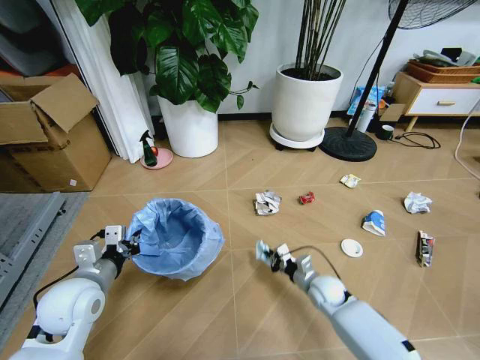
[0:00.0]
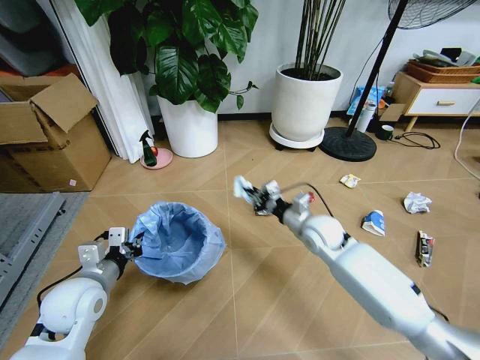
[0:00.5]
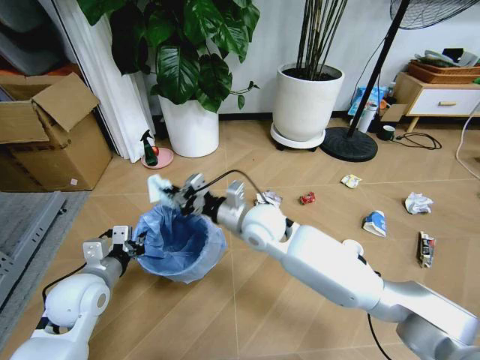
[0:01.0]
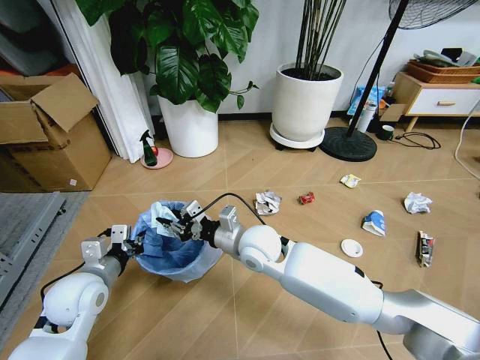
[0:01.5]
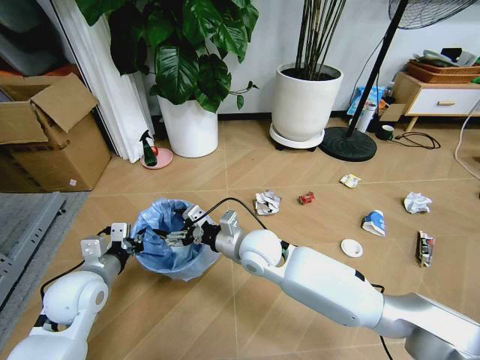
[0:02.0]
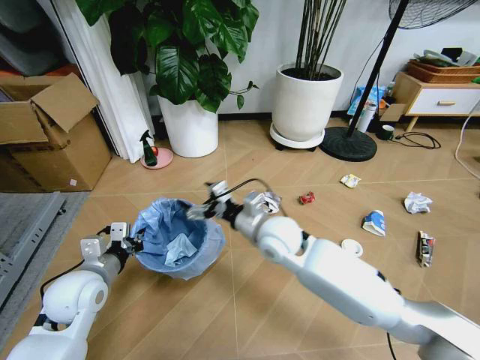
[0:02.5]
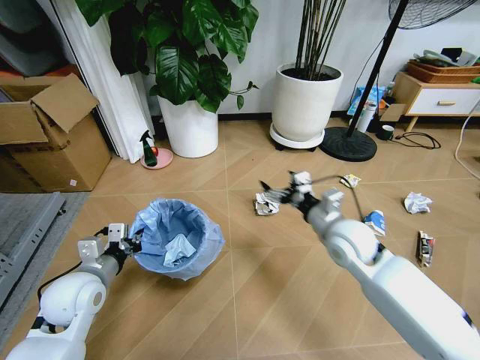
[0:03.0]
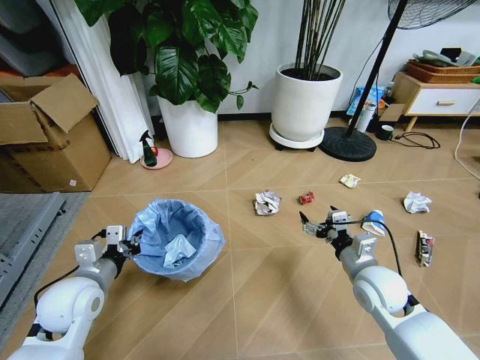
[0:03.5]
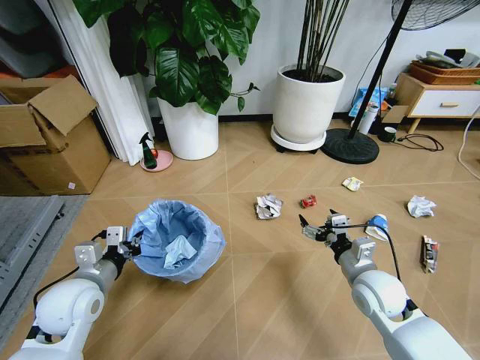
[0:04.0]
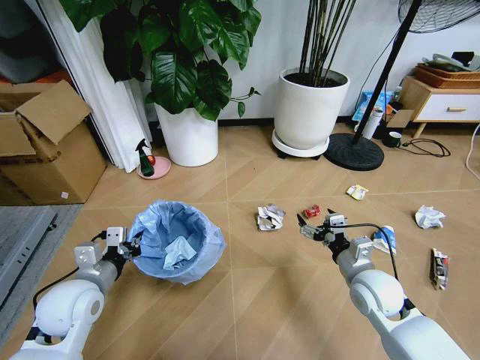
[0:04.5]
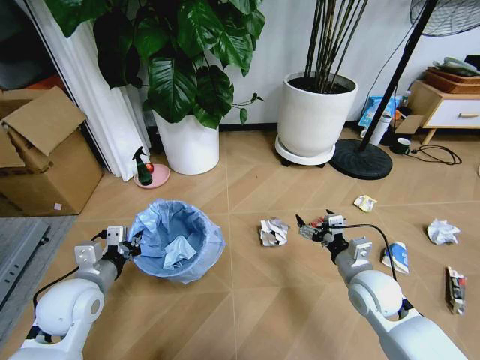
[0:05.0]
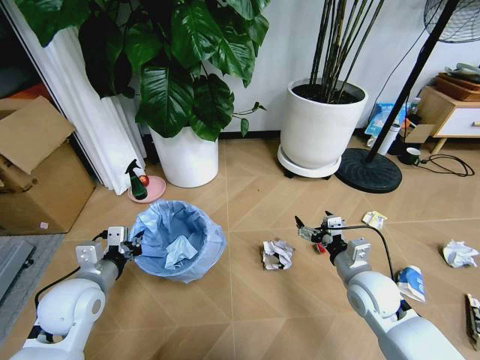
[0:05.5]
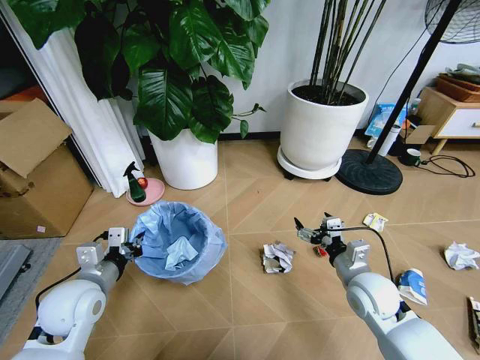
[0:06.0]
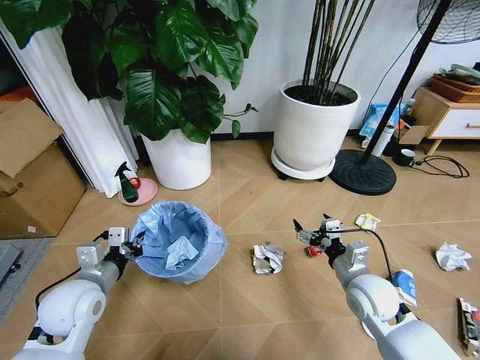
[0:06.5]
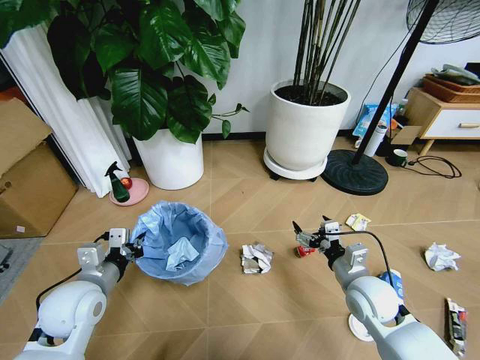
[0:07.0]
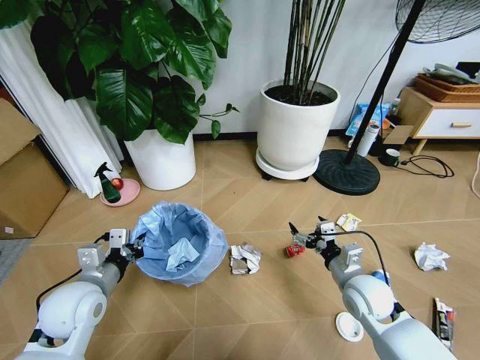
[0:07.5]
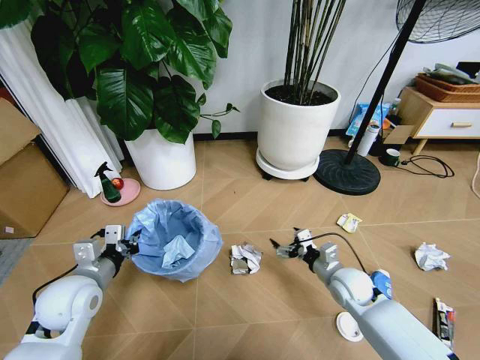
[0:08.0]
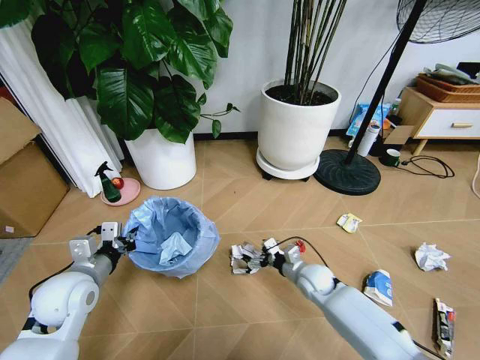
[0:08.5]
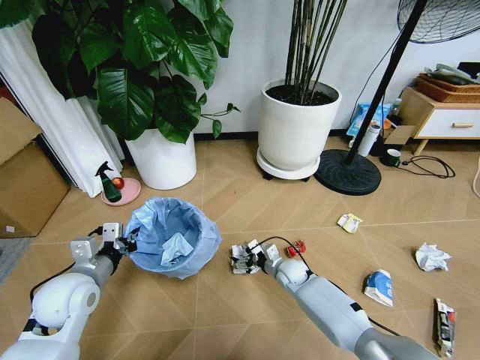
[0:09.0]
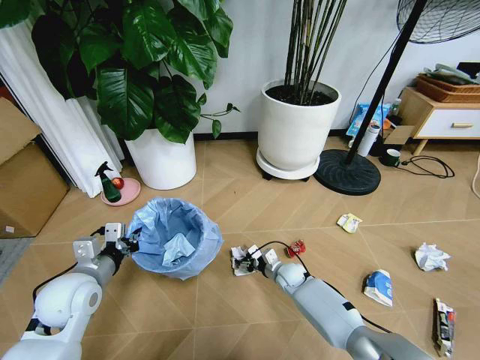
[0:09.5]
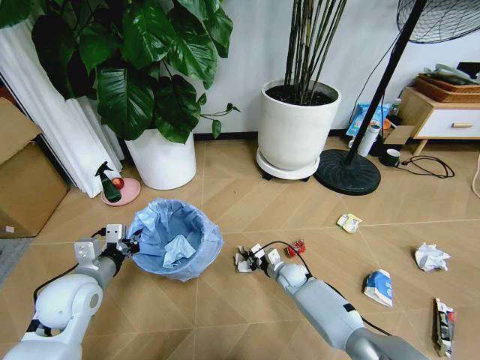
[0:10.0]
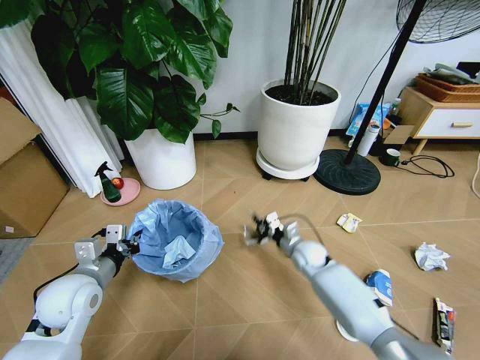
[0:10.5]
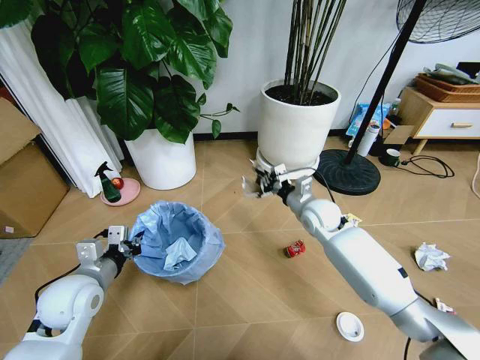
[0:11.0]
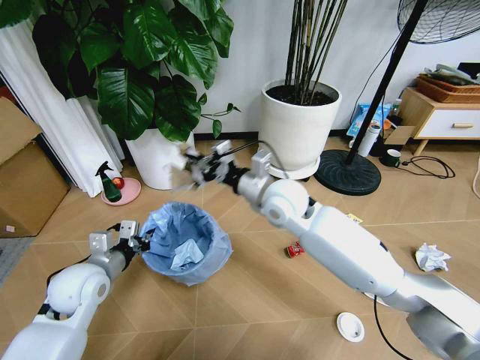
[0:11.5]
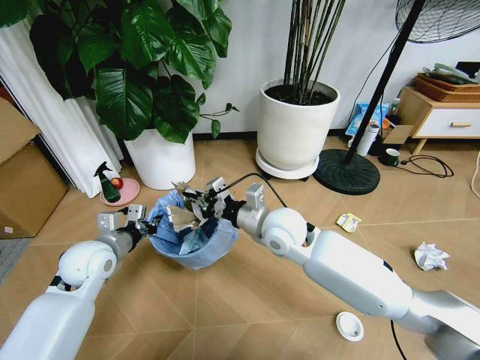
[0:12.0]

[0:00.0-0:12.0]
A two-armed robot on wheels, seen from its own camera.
Task of the whole recording: Pick up the trash bin and place the garbage on the floor into it.
0:00.0 to 0:02.0: The right gripper shifts some 30 cm upward and to the left, and opens its fingers.
0:02.0 to 0:04.0: The right gripper travels to the right by about 25 cm.
0:06.0 to 0:08.0: The right gripper shifts about 5 cm downward.
0:08.0 to 0:10.0: The right gripper moves downward, to the left and forward, approximately 20 cm, and closes its fingers.
0:10.0 to 0:12.0: The right gripper is displaced upward by roughly 30 cm, while the left gripper shifts approximately 5 cm forward.

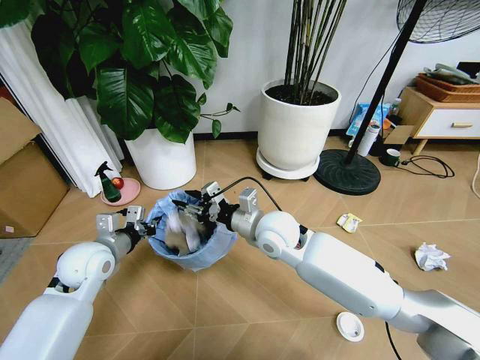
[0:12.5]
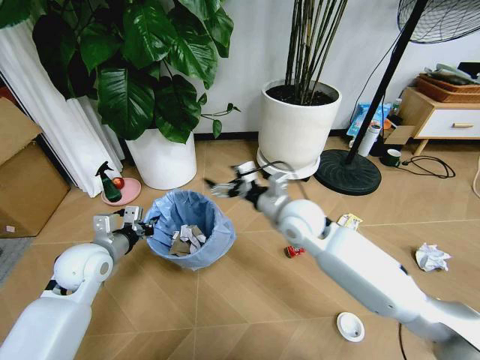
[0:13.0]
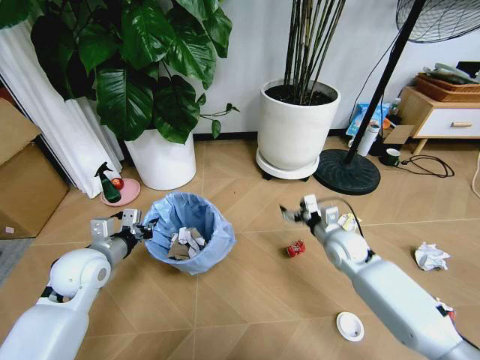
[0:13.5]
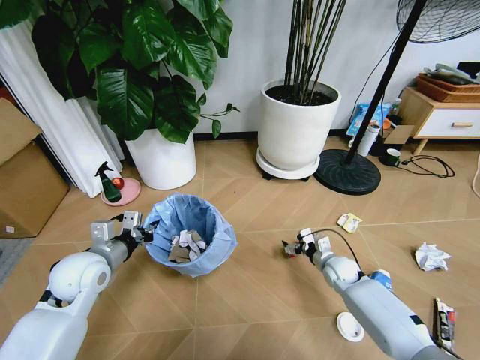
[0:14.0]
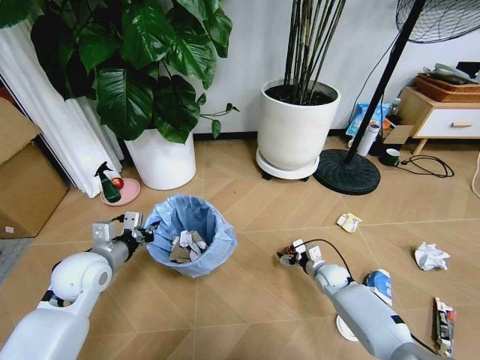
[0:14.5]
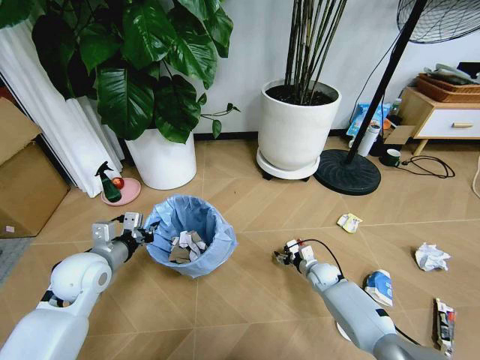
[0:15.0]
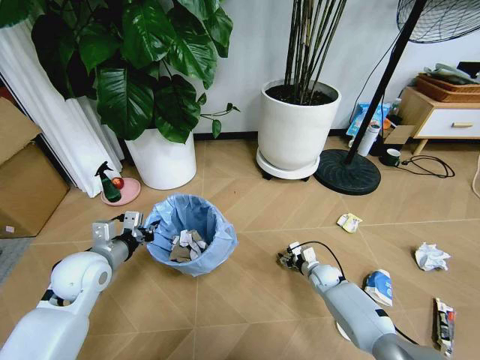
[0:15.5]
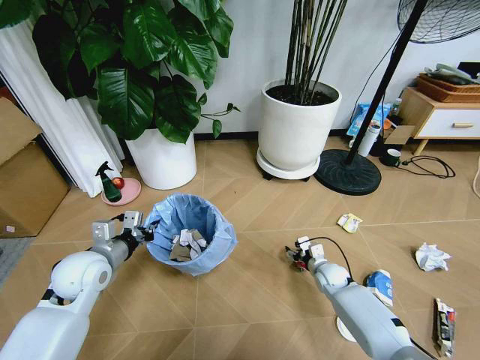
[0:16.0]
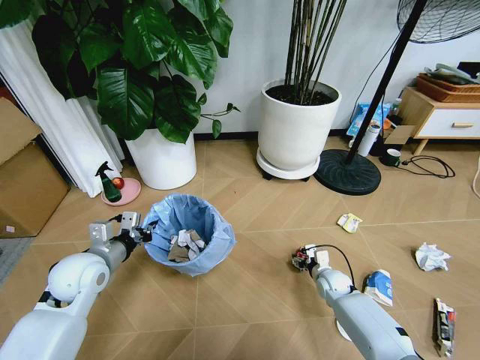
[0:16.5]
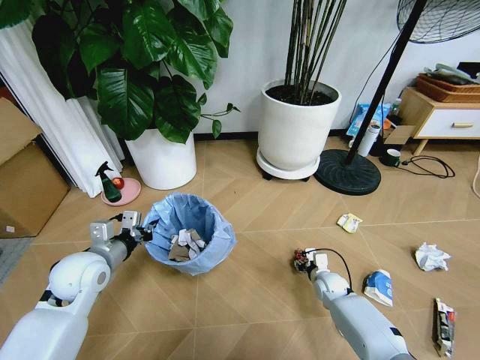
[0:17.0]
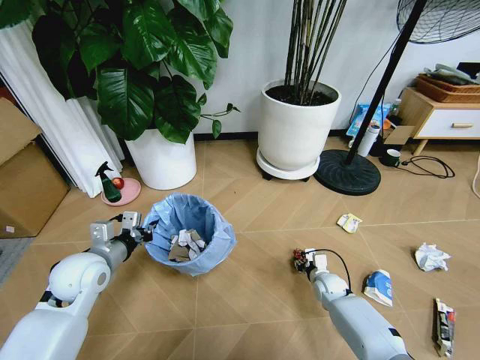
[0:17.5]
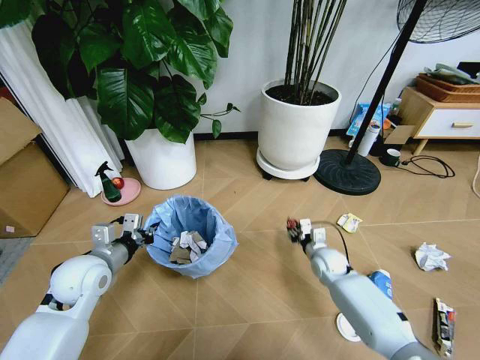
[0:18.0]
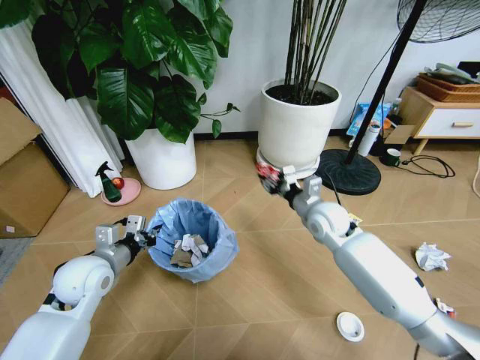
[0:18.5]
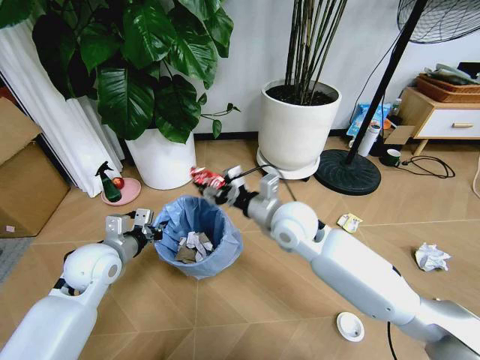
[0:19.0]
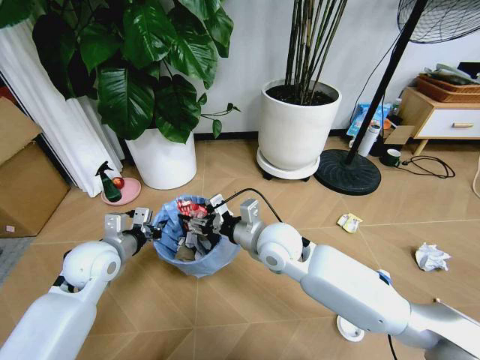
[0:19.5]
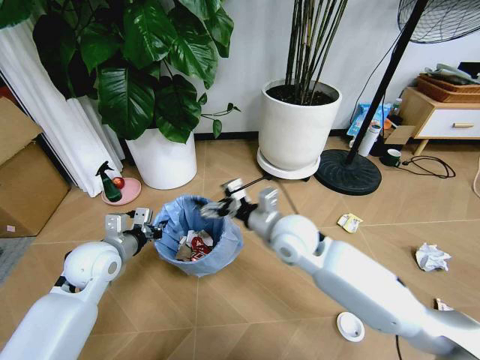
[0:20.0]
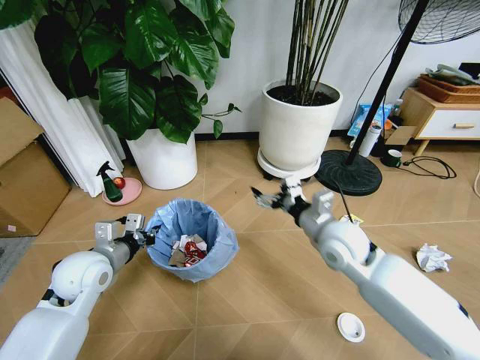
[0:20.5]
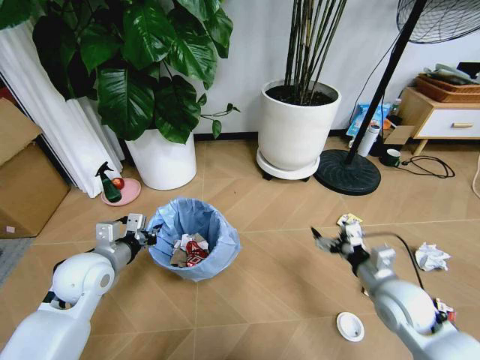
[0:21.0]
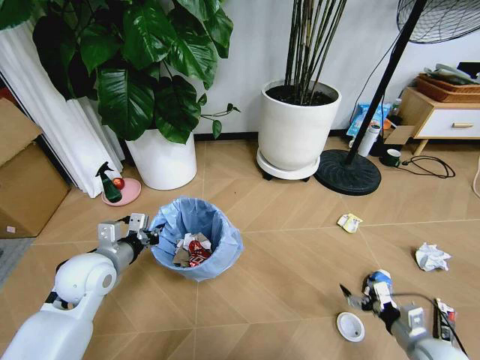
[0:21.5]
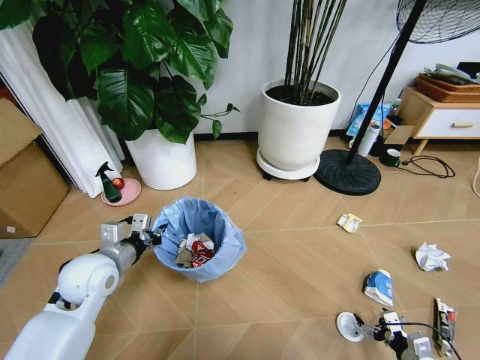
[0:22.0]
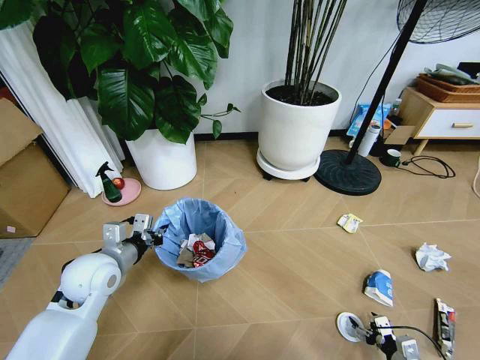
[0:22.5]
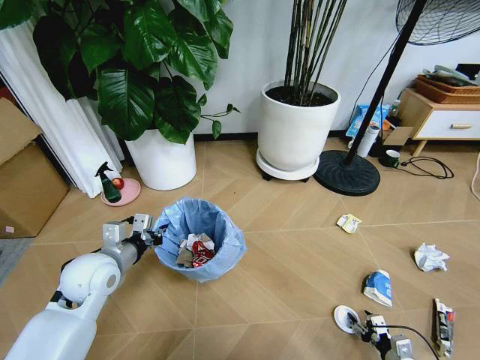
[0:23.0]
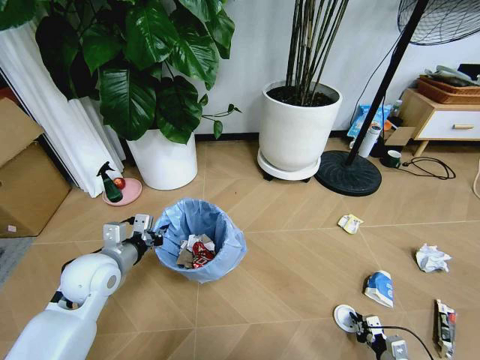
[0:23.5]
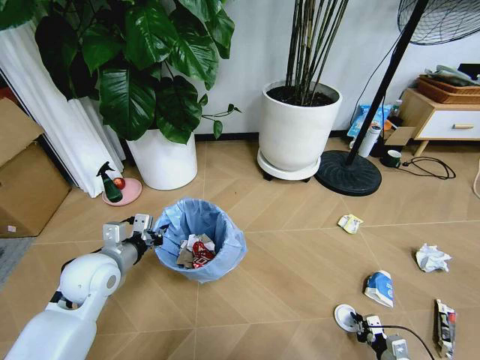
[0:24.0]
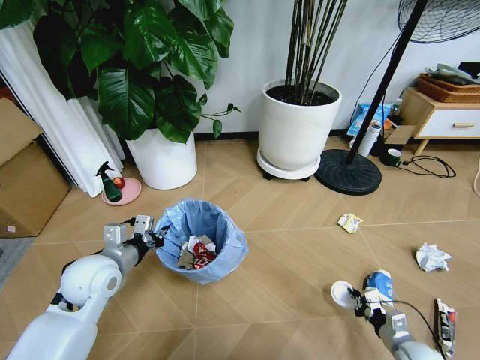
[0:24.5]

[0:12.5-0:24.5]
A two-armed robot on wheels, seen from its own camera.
Task of the whole recording: Pick up the trash bin and place the garbage on the floor into it.
0:12.5 to 0:14.5: The right gripper goes roughly 35 cm downward and to the right, and opens up.
0:14.5 to 0:16.5: The grippers stay close to where they were, moving slightly.
0:16.5 to 0:18.5: The right gripper shifts about 25 cm upward.
0:18.5 to 0:20.5: The right gripper heads backward, covering roughly 10 cm, reaches about 15 cm to the left, then returns, and opens its fingers.
0:20.5 to 0:22.5: The right gripper shifts approximately 50 cm downward, to the right and backward.
0:22.5 to 0:24.5: The right gripper heads forward, covering roughly 5 cm, and closes its fingers.

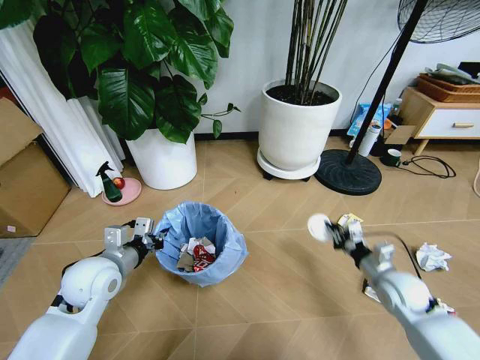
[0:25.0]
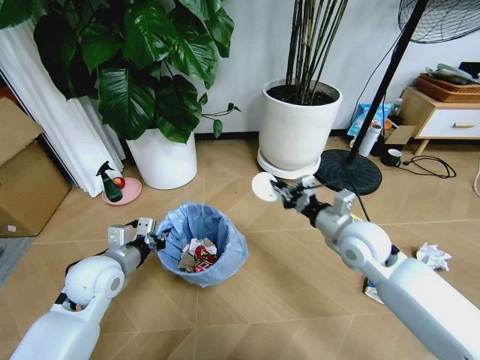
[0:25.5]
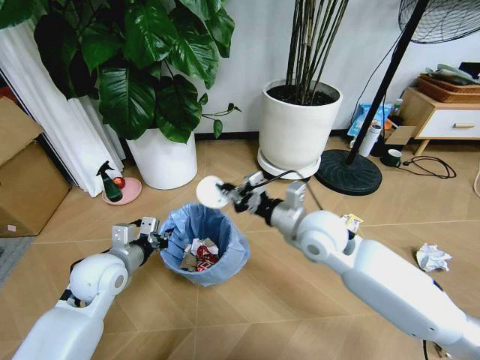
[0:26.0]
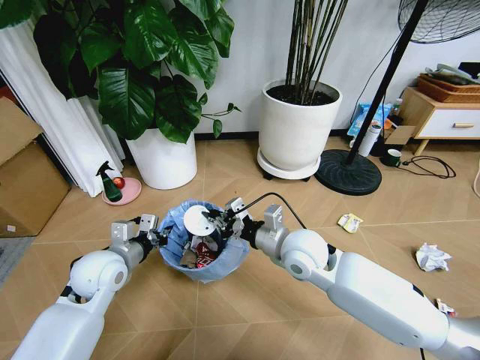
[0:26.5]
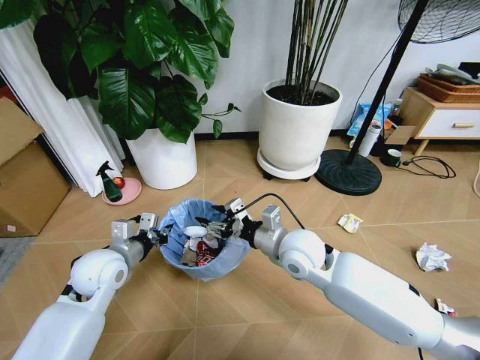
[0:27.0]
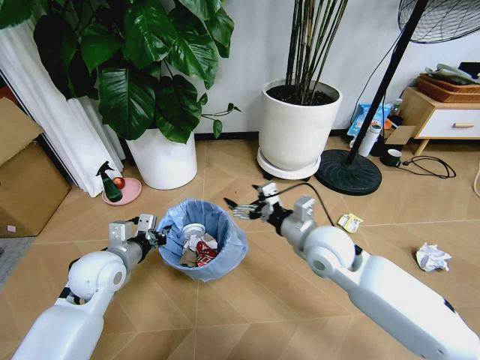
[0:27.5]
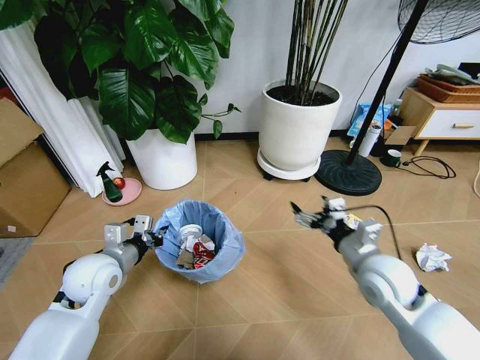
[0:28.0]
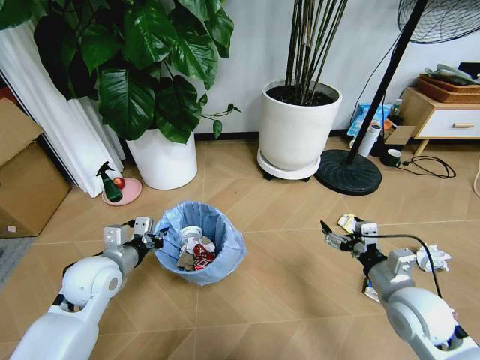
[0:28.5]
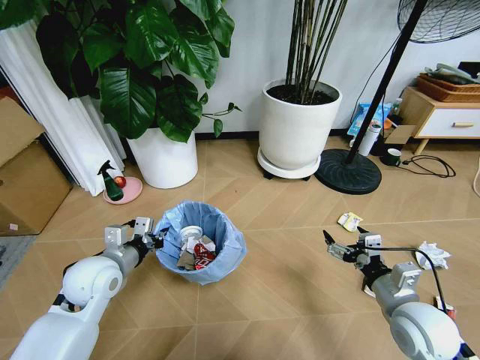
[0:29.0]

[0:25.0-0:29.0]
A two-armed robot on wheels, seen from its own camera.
Task of the whole recording: Pick up the trash bin and place the garbage on the floor into it.
0:25.0 to 0:27.0: The right gripper is displaced to the left and upward by about 25 cm, and opens.
0:27.0 to 0:29.0: The right gripper goes about 25 cm to the right and backward, and opens up.
